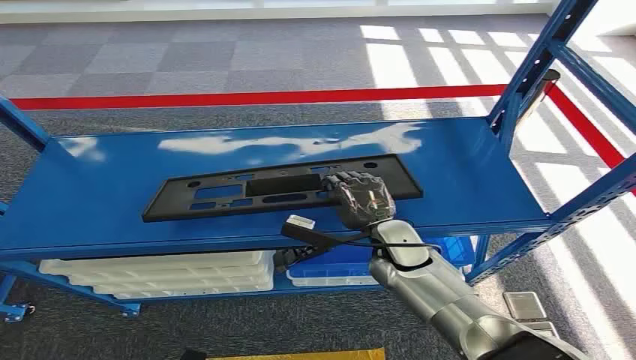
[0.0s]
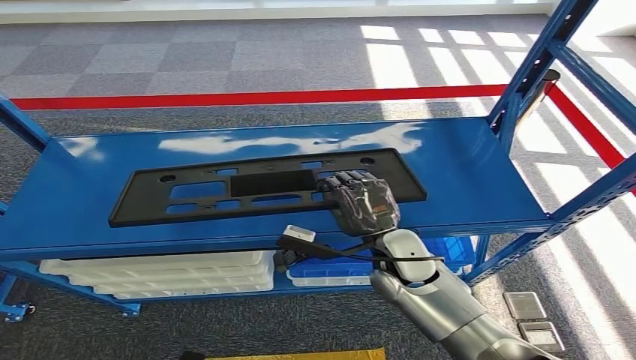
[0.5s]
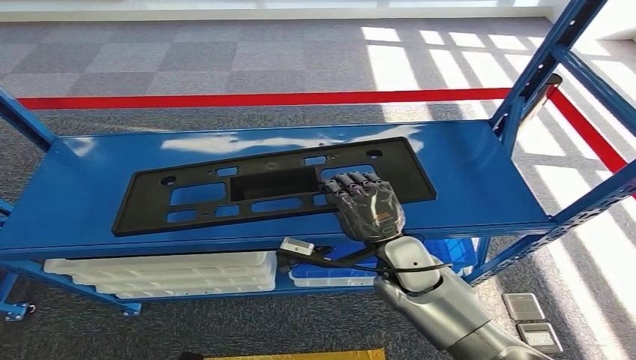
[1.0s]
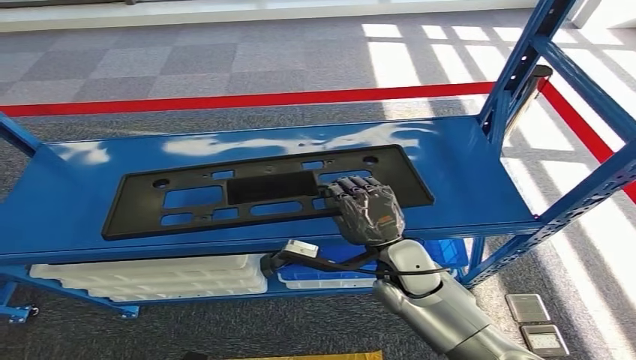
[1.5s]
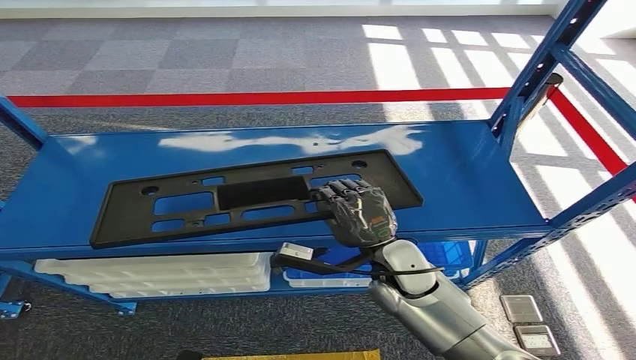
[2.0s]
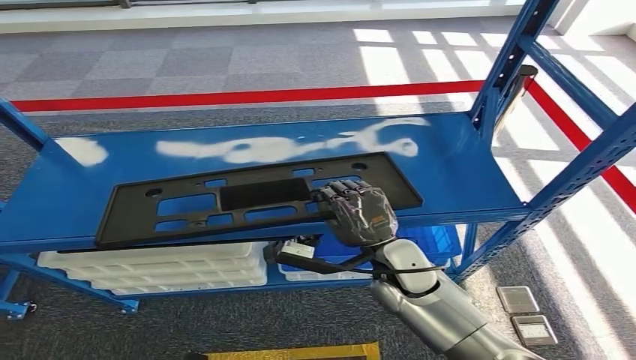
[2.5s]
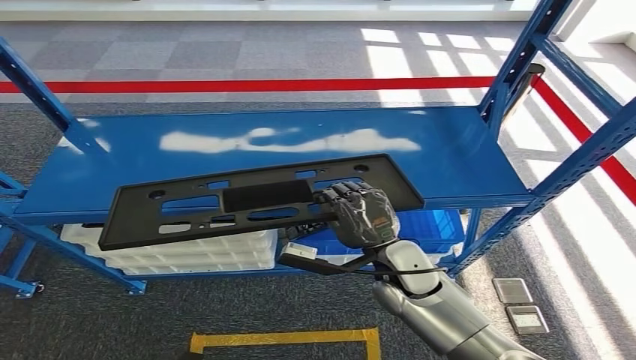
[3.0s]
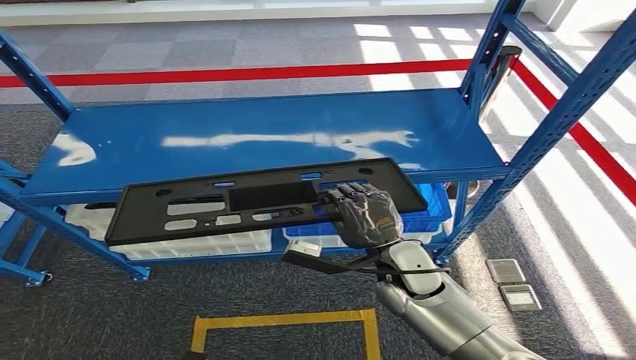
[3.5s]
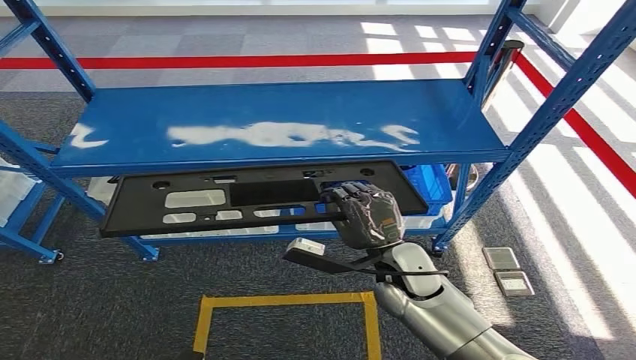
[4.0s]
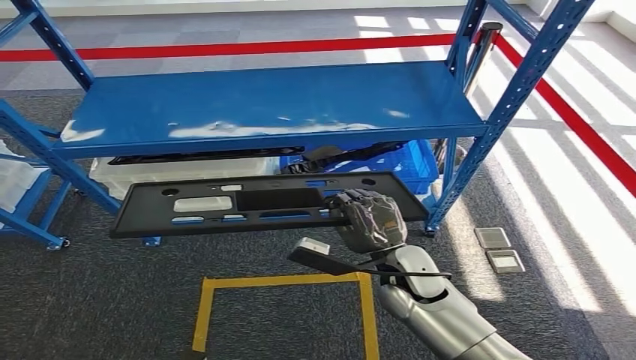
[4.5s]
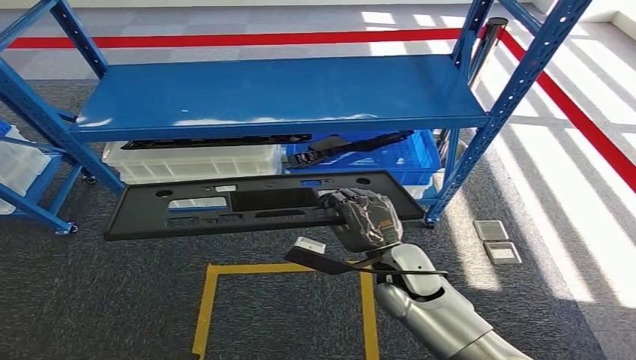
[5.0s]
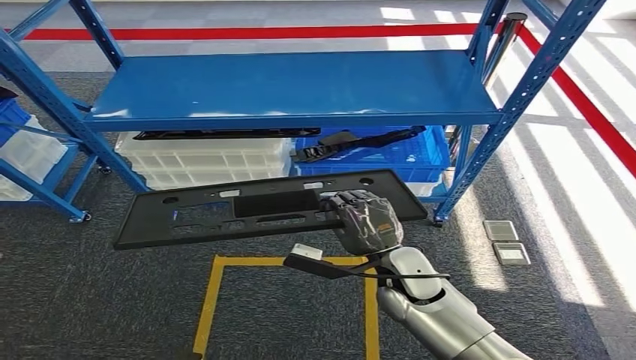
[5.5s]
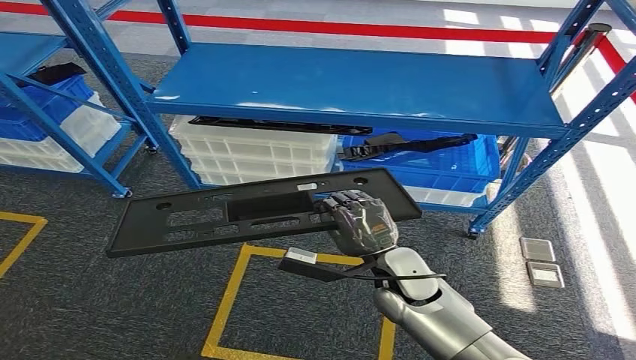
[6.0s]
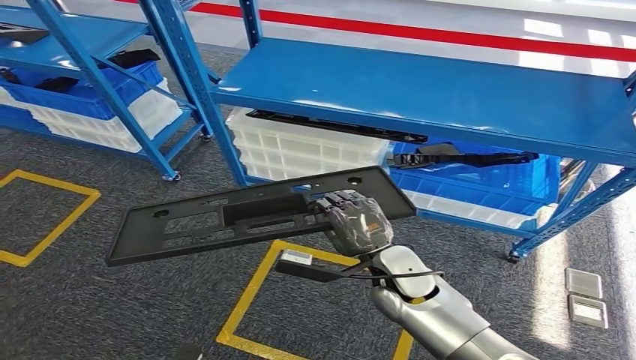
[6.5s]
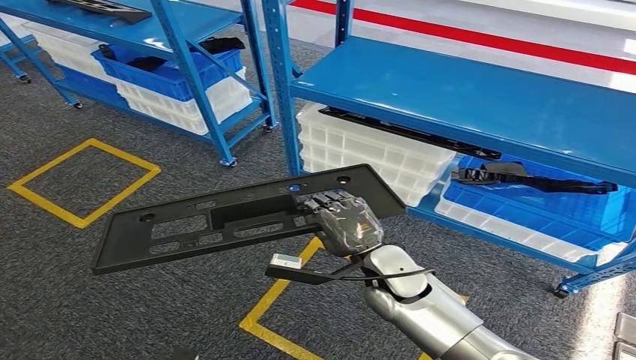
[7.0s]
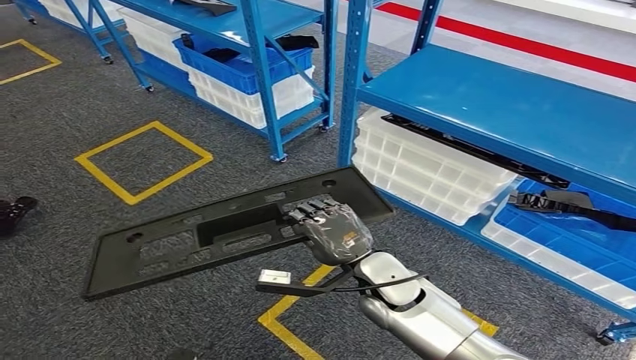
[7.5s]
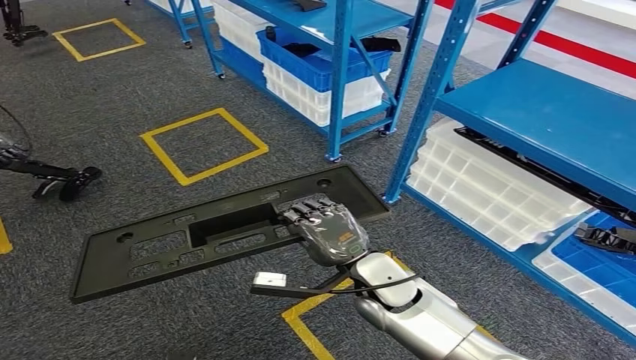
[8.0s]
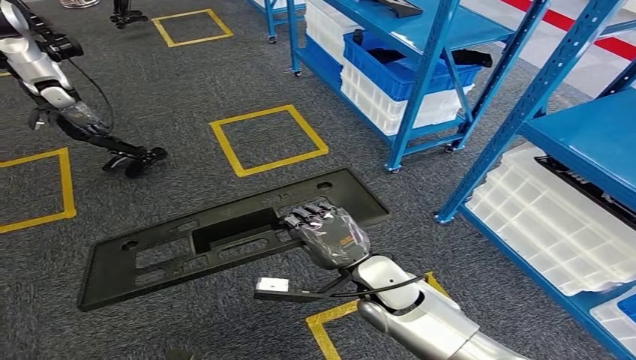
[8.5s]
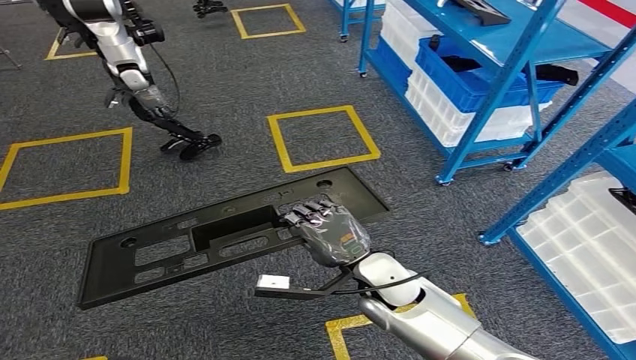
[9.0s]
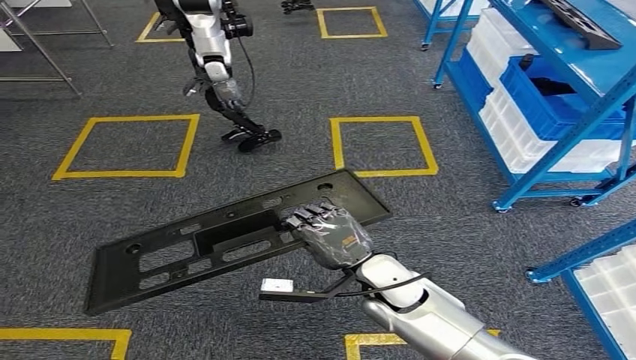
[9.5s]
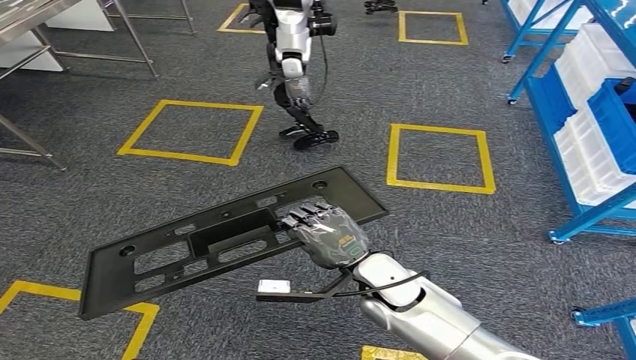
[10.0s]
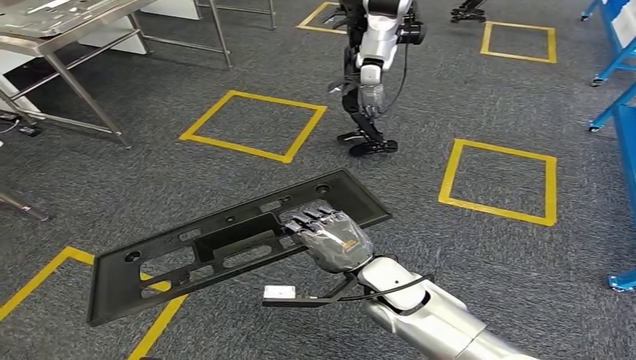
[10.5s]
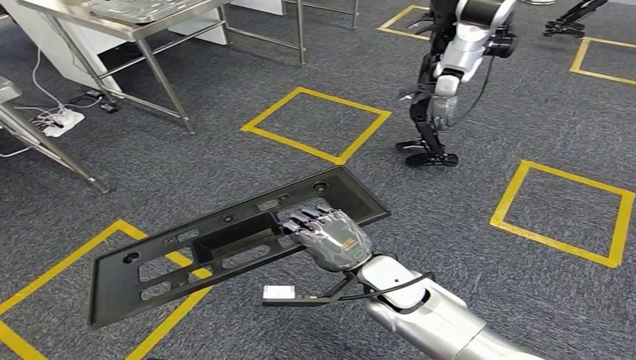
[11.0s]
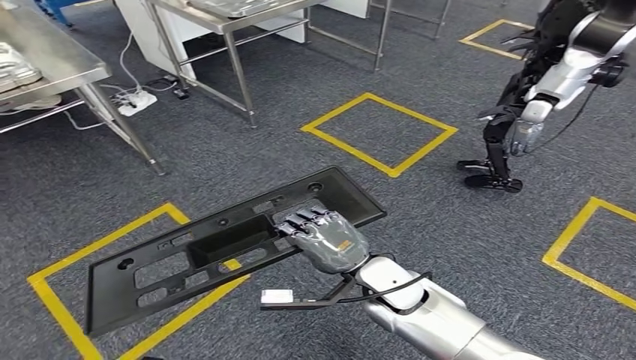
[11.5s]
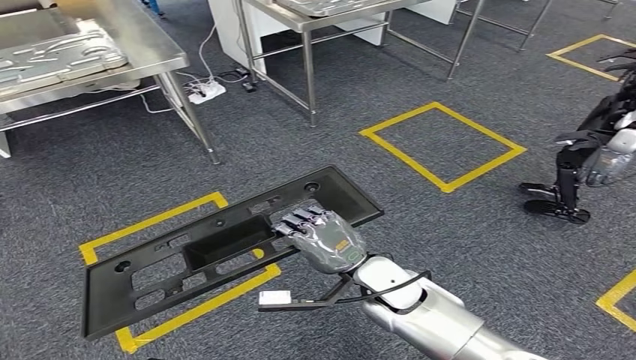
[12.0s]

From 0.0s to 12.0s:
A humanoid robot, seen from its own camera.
Step, from 0.0s to 1.0s: Pick up the small component from the shelf.

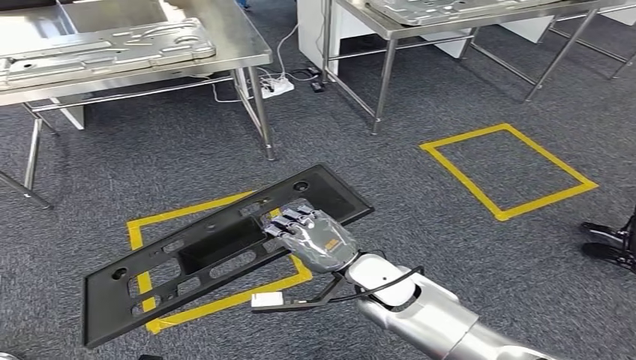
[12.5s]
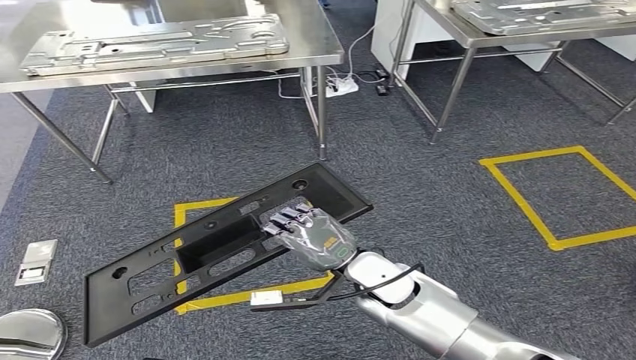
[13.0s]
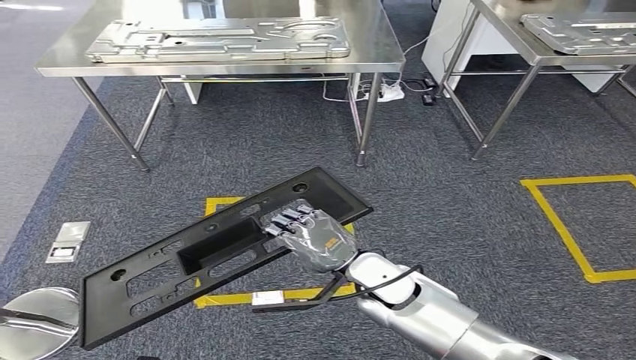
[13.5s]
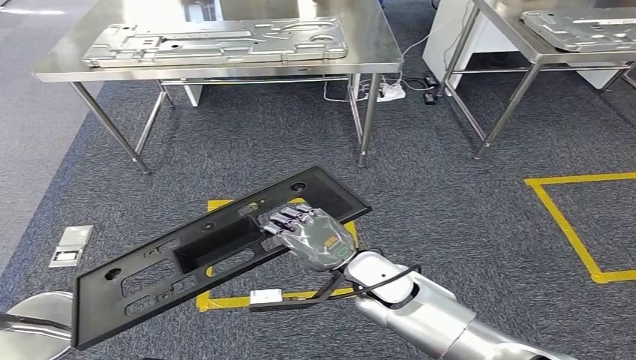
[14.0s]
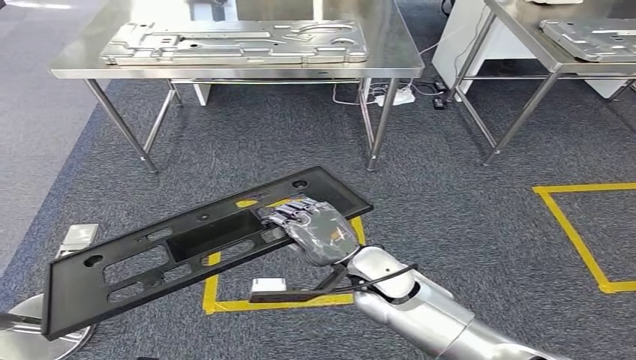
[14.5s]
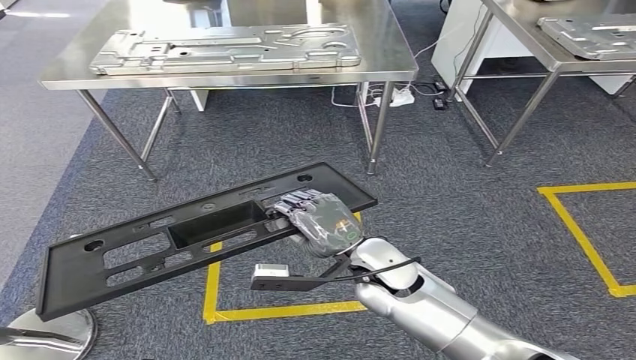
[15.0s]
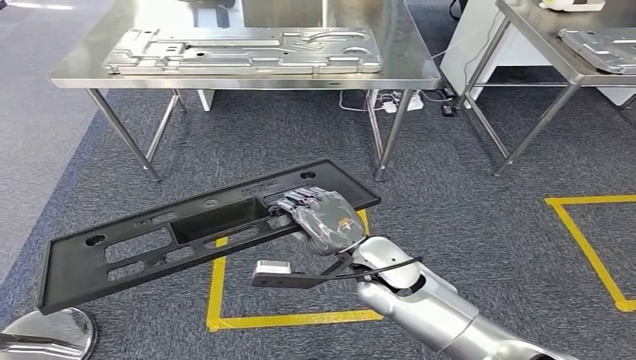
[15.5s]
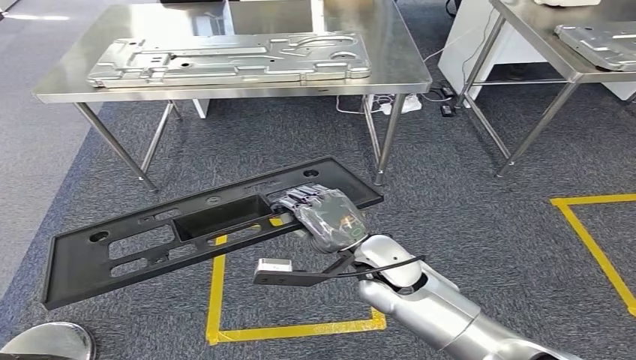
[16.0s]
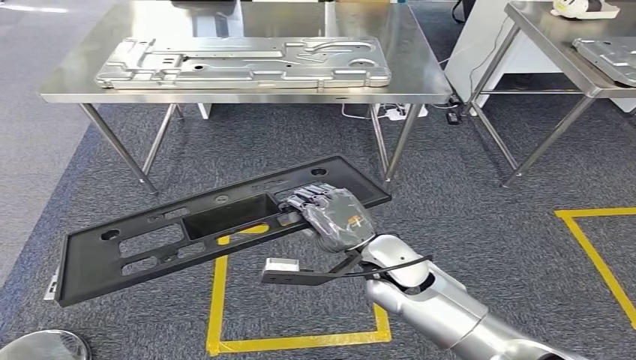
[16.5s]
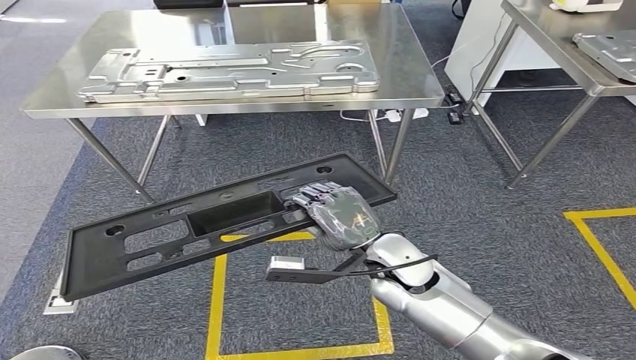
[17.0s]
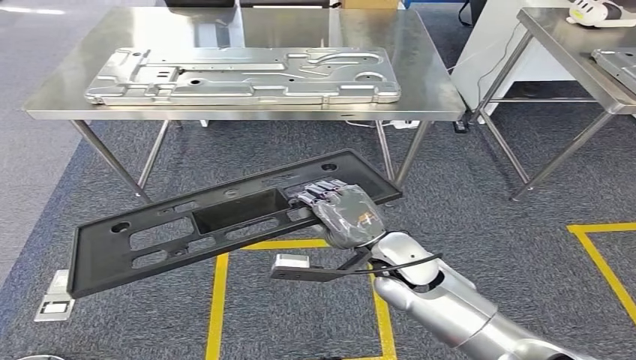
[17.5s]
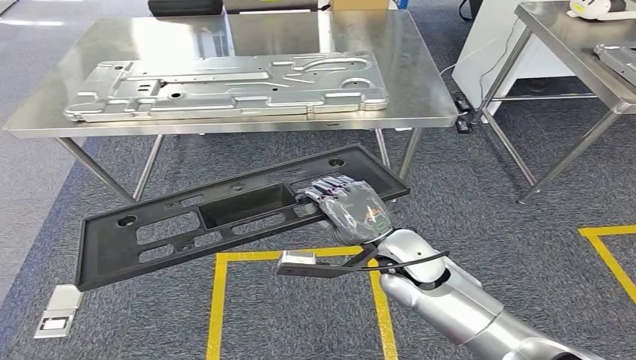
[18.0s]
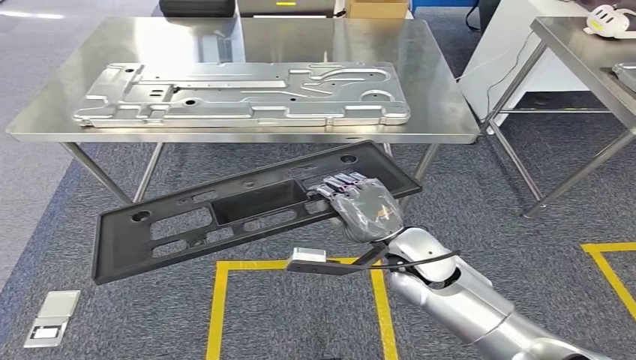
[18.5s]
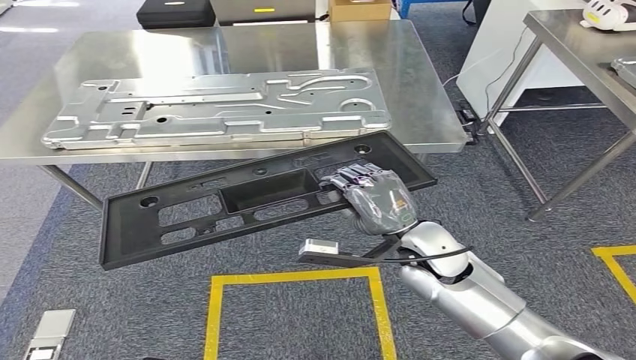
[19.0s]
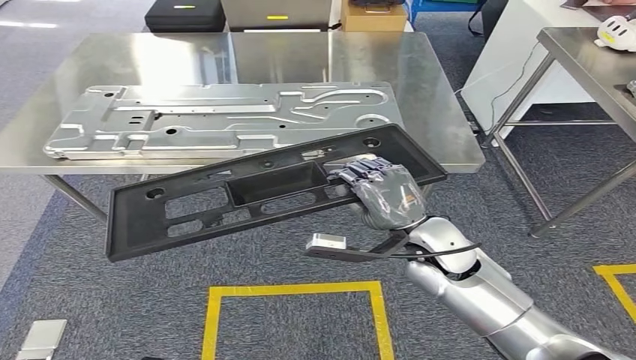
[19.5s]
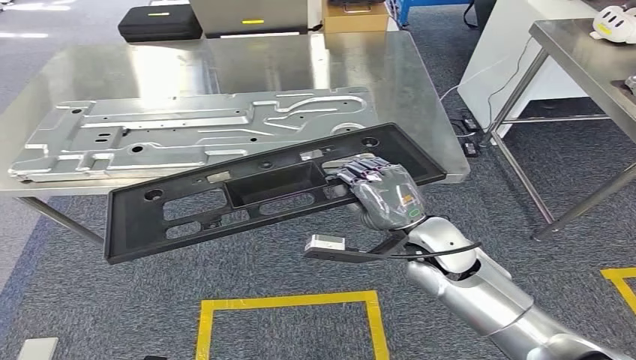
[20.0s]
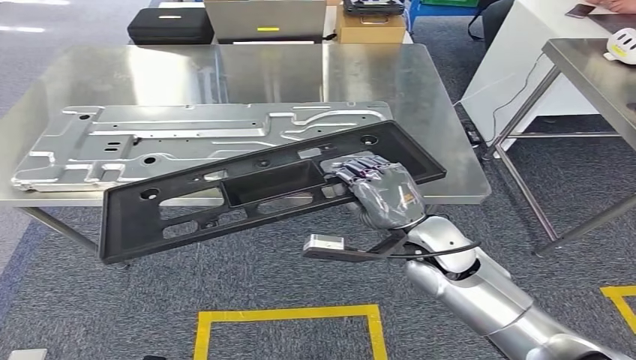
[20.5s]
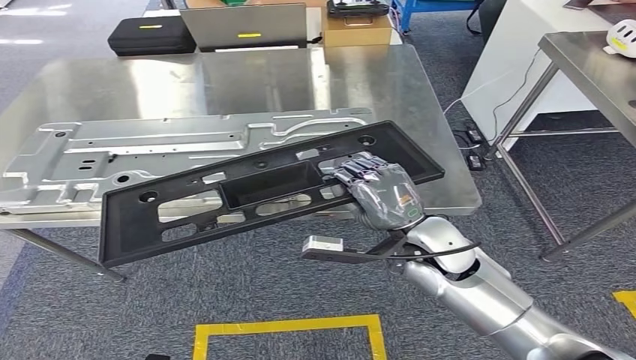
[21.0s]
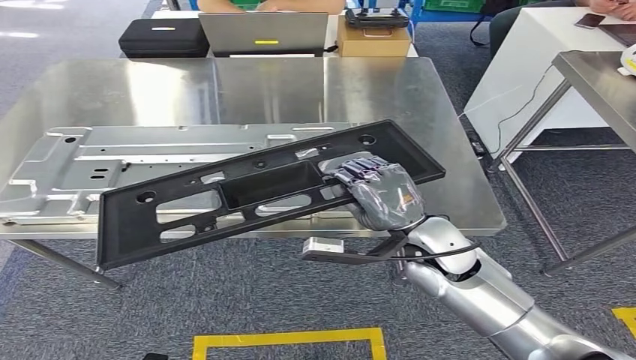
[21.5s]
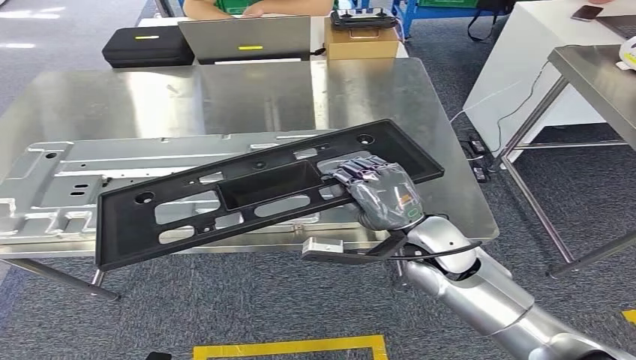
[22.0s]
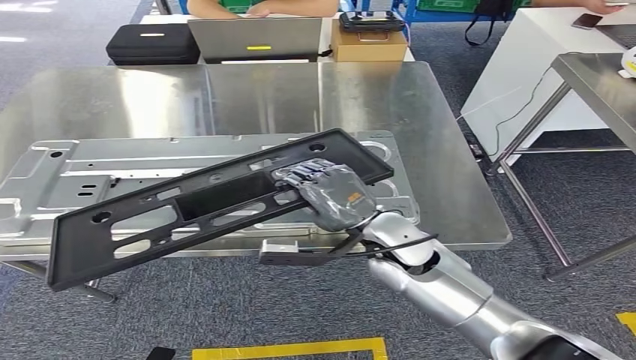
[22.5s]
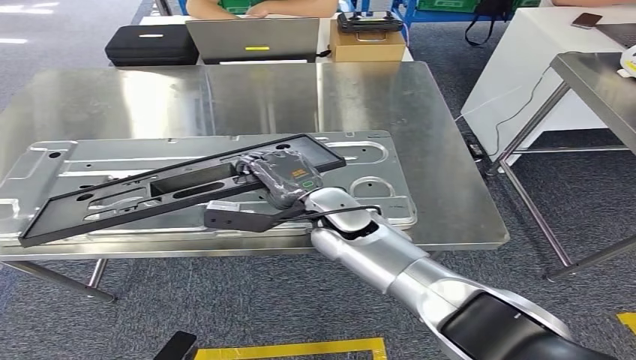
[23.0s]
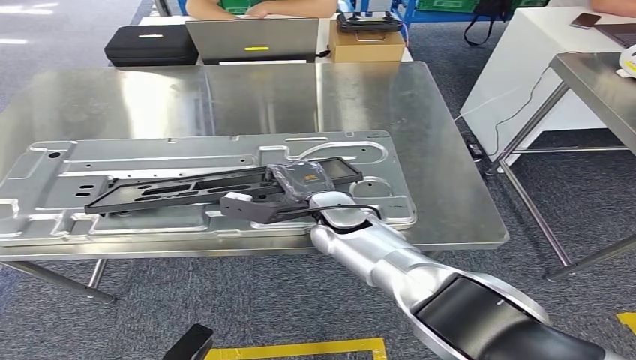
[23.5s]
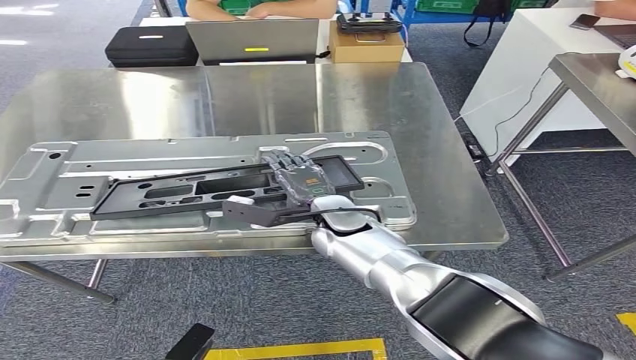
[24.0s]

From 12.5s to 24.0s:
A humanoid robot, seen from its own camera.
Step, from 12.5s to 22.0s: Move the small component to the workbench.
